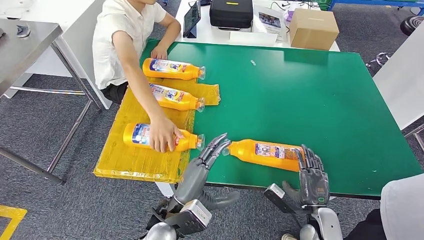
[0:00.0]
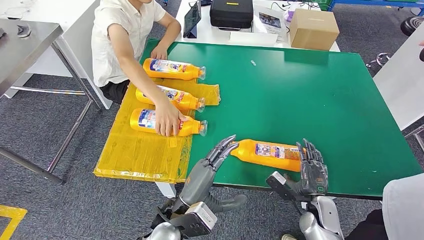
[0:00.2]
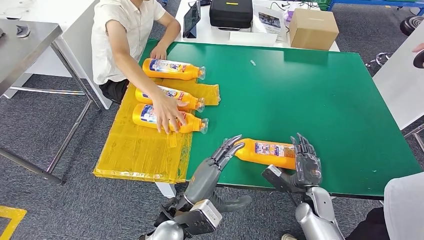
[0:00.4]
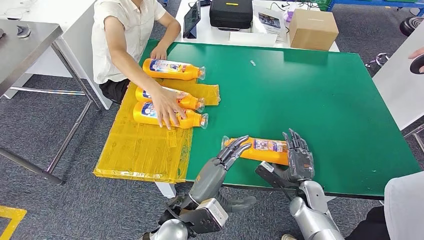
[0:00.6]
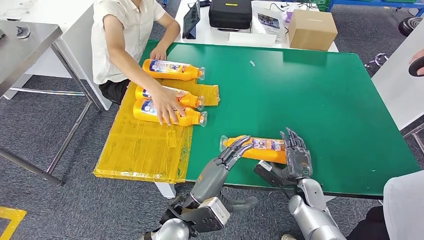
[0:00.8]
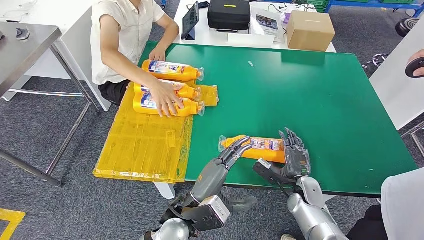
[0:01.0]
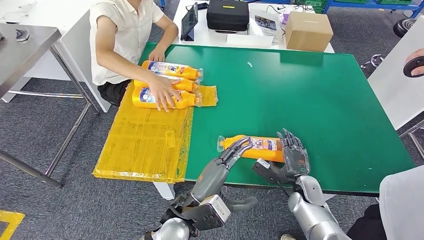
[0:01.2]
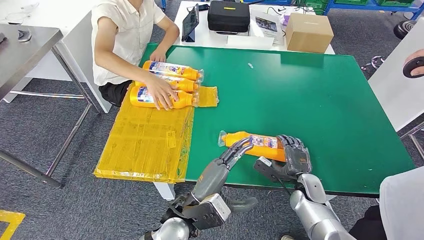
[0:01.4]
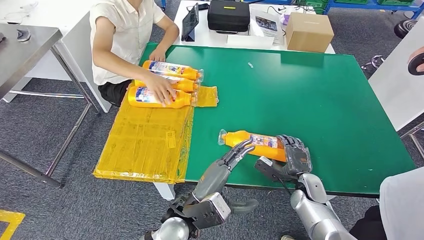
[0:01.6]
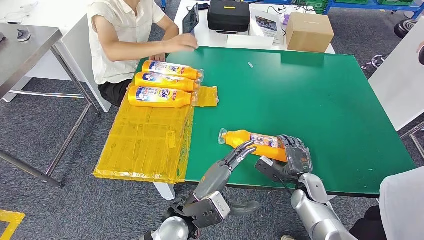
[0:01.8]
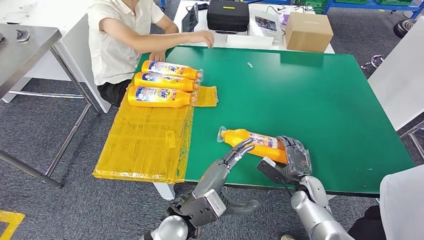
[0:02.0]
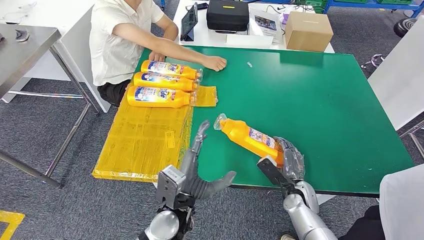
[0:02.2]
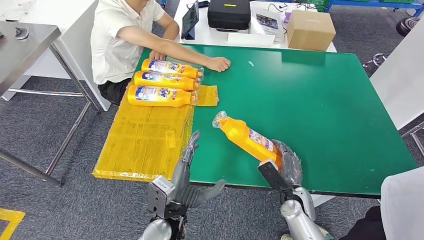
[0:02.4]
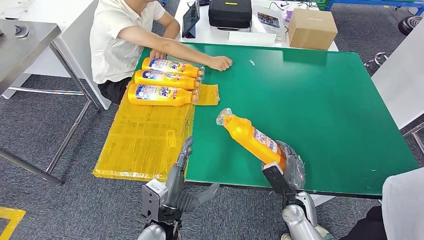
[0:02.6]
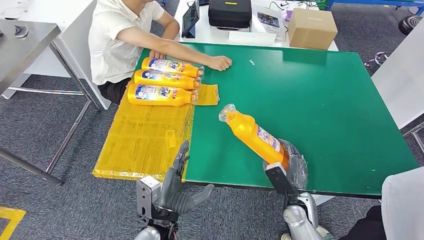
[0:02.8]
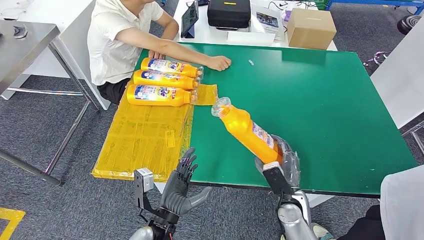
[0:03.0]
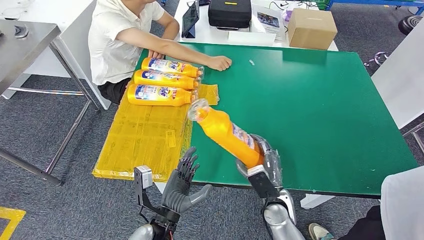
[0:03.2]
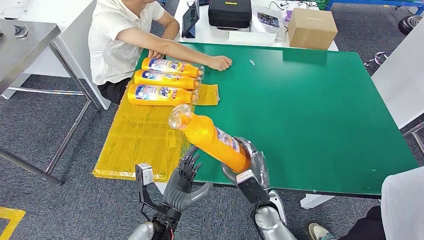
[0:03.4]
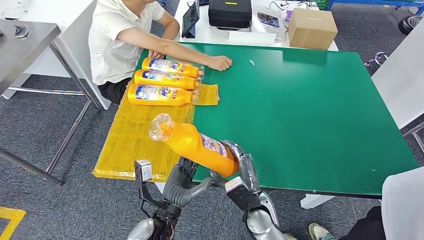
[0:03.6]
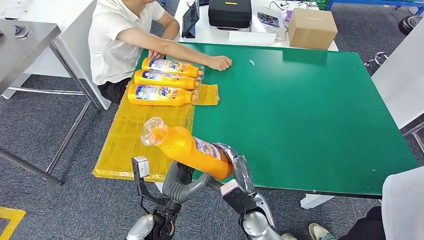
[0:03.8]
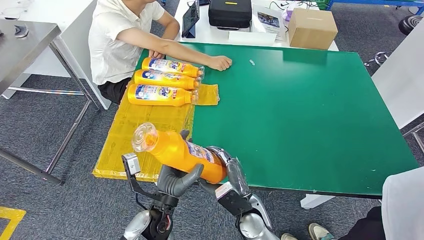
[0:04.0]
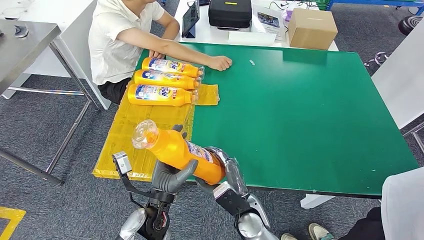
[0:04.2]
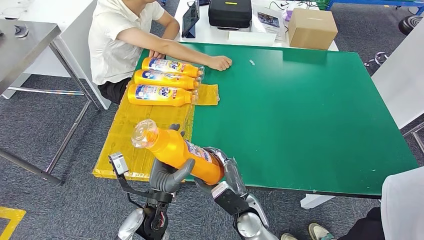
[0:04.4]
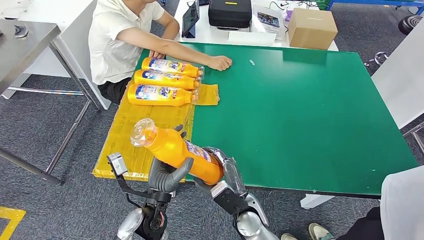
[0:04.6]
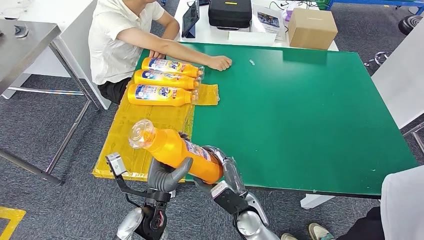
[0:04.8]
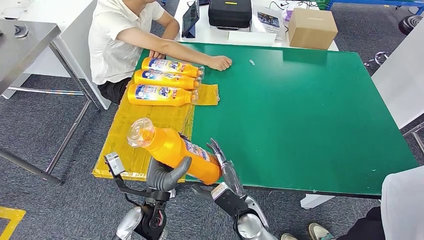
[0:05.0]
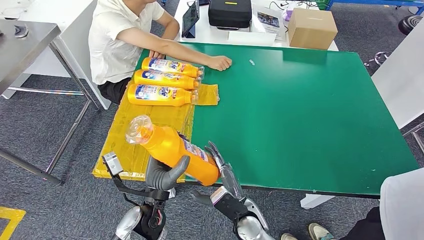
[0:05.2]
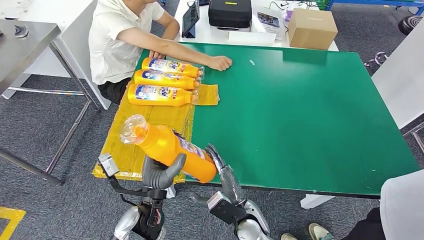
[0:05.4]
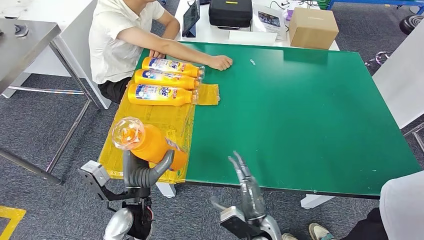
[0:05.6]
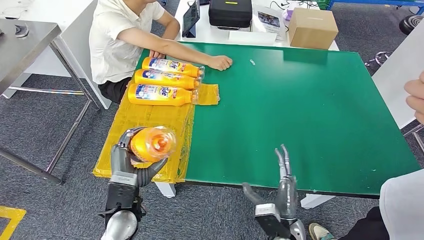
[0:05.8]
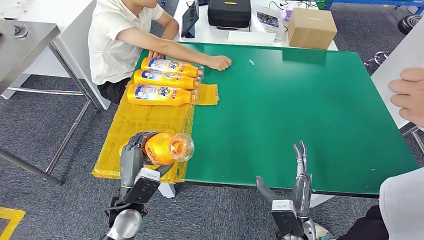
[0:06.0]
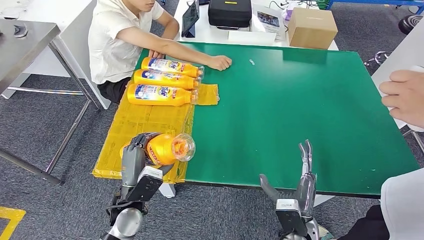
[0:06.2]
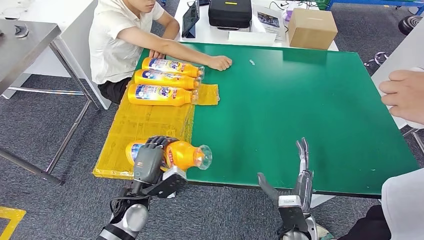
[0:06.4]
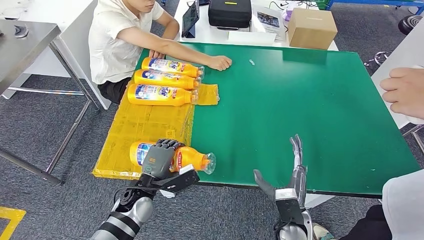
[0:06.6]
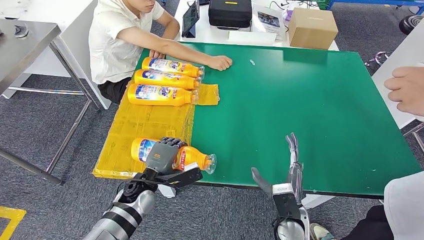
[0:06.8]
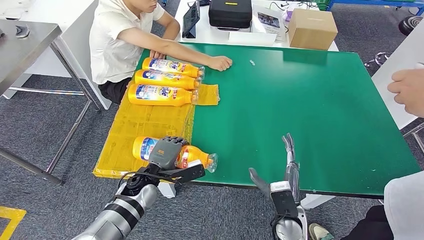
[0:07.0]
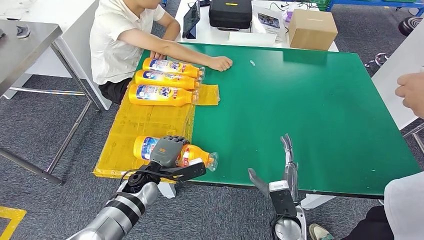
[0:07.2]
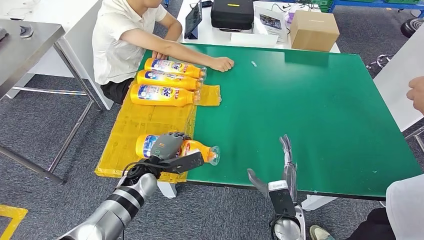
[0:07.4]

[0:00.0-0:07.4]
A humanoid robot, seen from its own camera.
Step, 0:00.0 to 0:03.6: Pick up the fast-moving consumer goods bottle from the table.
Step, 0:04.0 to 0:07.4: Flip the fast-moving consumer goods bottle to the front side.
0:03.0 to 0:04.4: The right hand shifts approximately 15 cm to the left, while the left hand moves roughly 5 cm.
0:04.4 to 0:06.0: The left hand is displaced to the left by approximately 5 cm; the right hand shifts approximately 10 cm to the right.

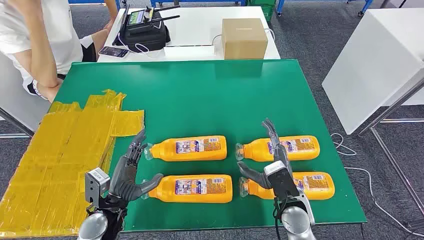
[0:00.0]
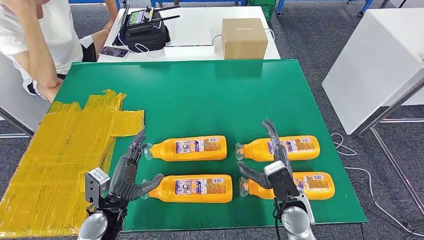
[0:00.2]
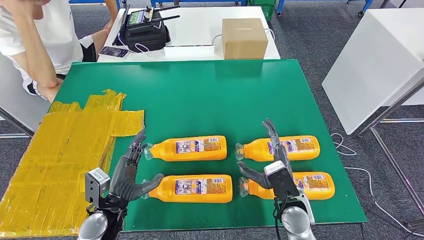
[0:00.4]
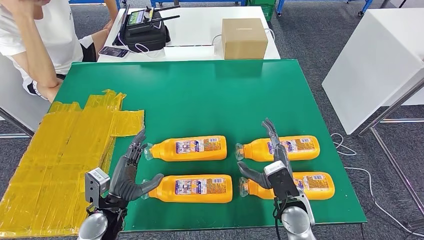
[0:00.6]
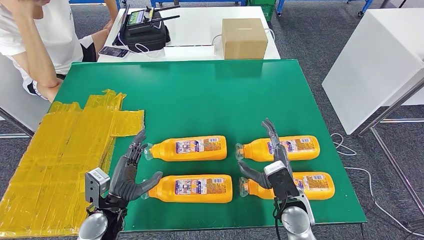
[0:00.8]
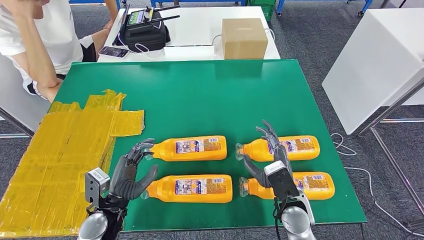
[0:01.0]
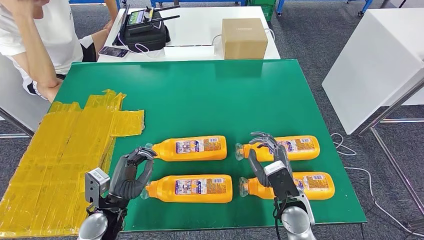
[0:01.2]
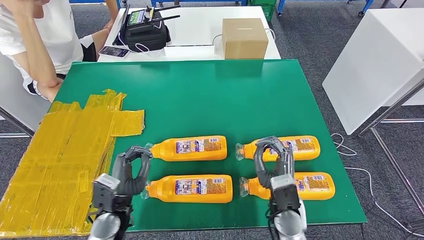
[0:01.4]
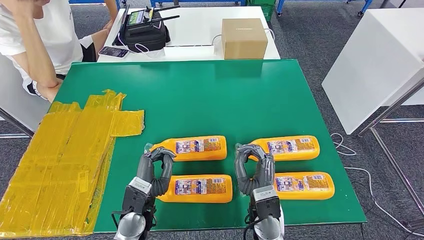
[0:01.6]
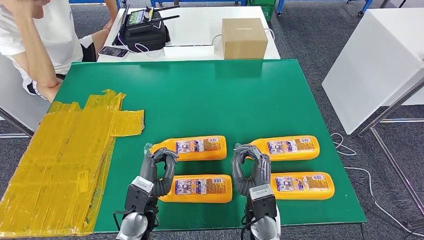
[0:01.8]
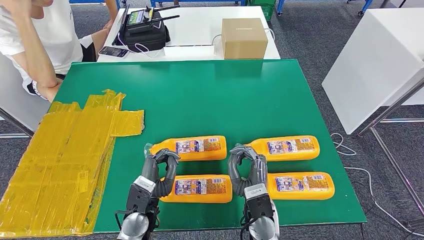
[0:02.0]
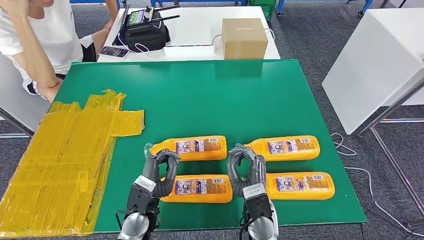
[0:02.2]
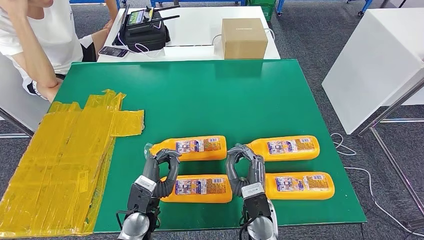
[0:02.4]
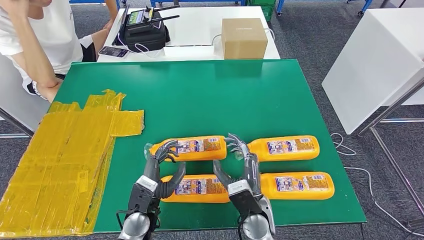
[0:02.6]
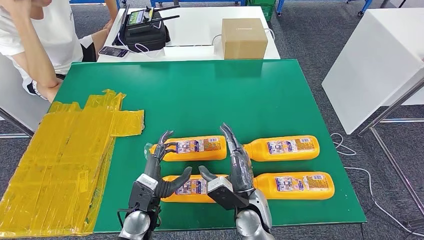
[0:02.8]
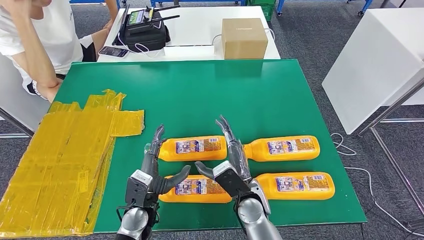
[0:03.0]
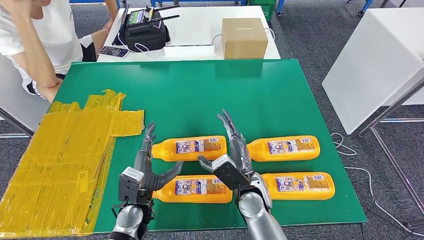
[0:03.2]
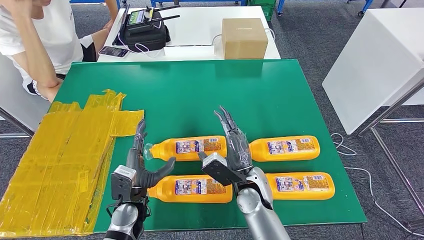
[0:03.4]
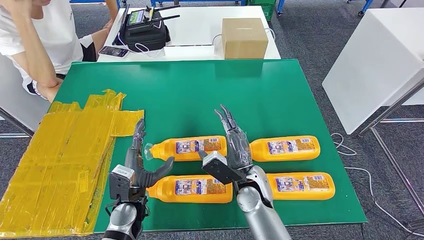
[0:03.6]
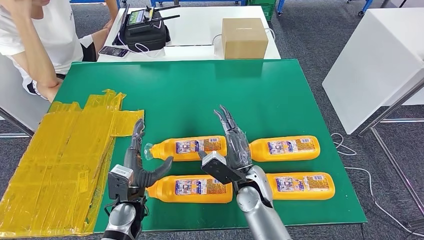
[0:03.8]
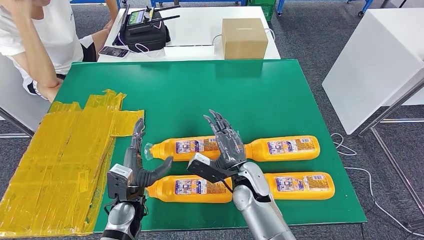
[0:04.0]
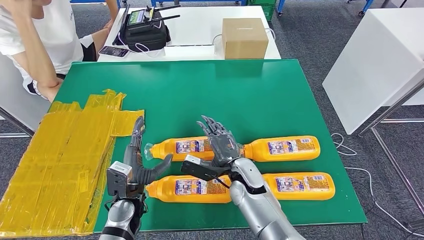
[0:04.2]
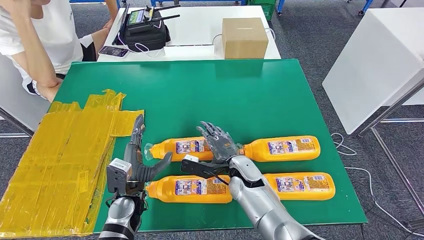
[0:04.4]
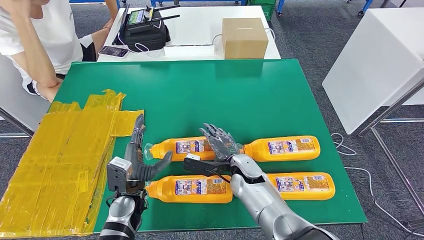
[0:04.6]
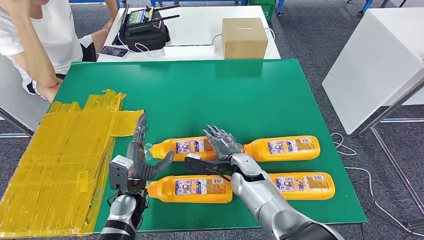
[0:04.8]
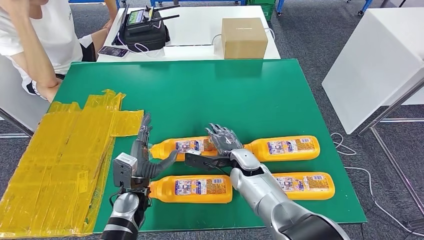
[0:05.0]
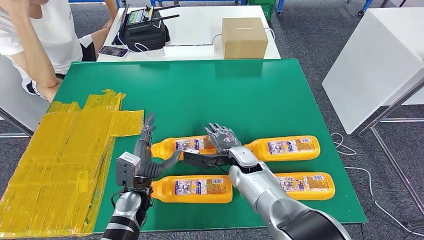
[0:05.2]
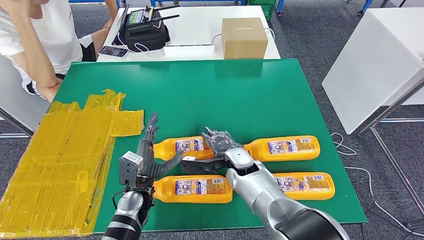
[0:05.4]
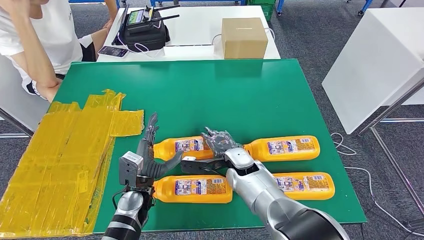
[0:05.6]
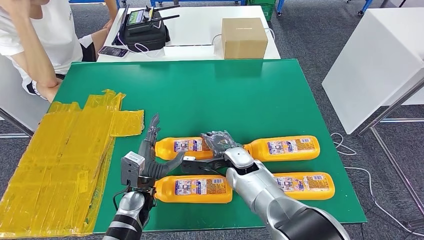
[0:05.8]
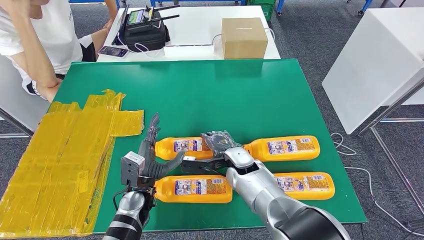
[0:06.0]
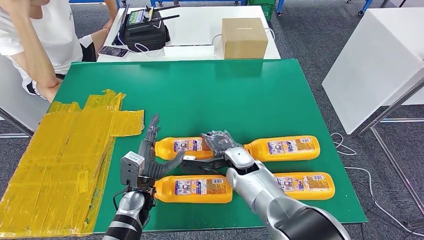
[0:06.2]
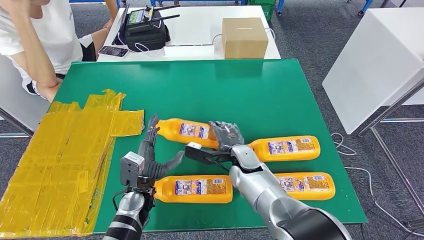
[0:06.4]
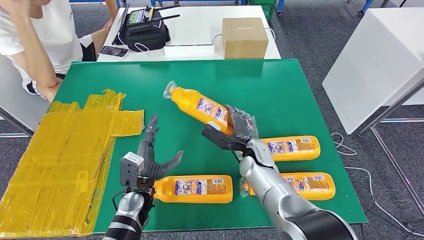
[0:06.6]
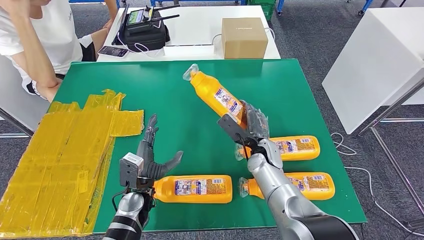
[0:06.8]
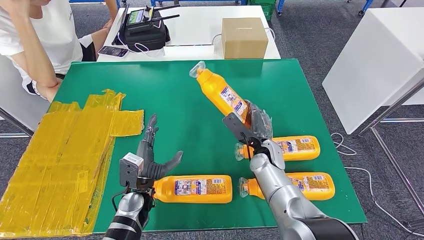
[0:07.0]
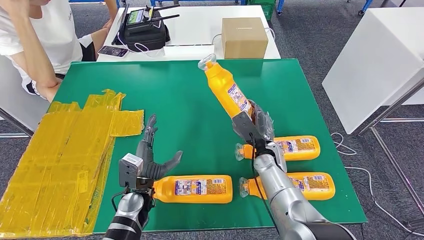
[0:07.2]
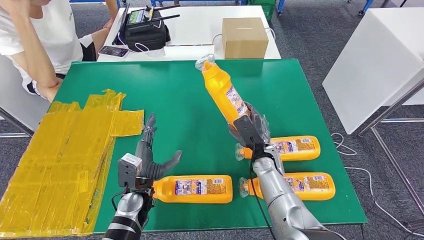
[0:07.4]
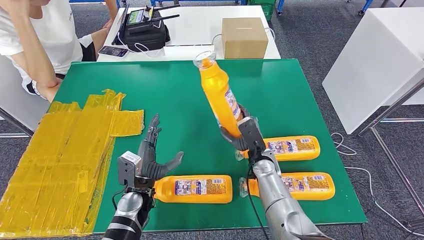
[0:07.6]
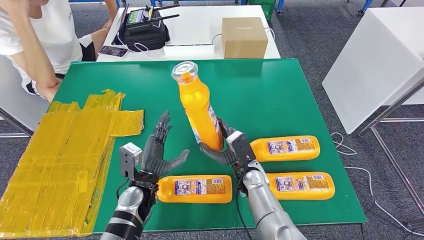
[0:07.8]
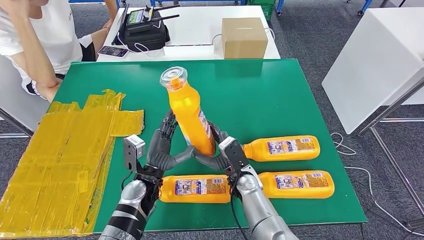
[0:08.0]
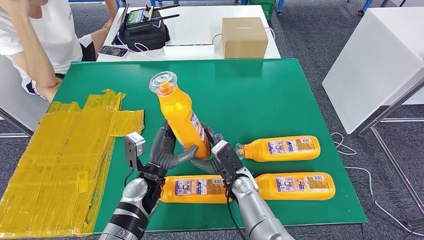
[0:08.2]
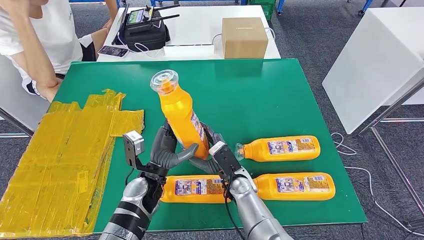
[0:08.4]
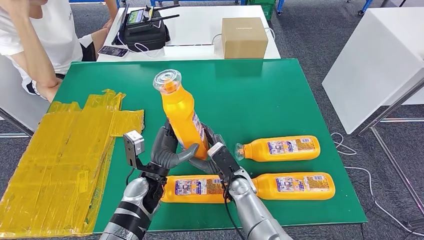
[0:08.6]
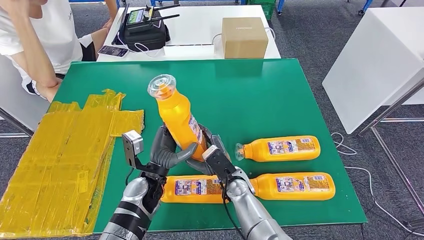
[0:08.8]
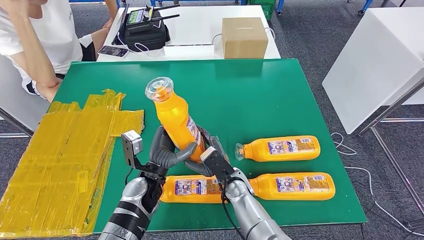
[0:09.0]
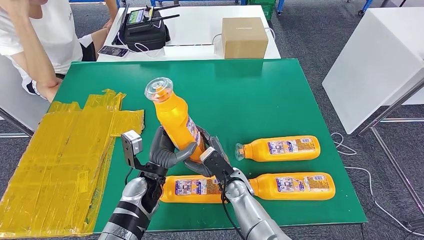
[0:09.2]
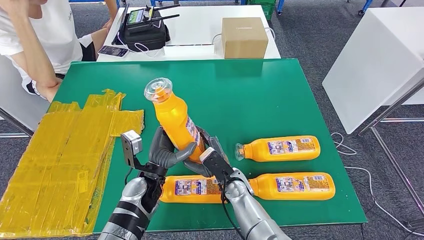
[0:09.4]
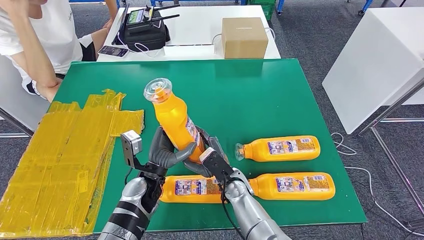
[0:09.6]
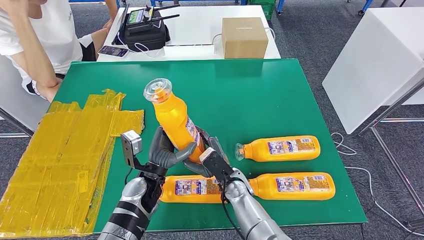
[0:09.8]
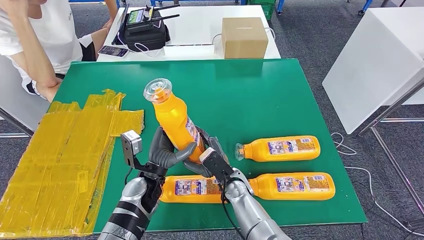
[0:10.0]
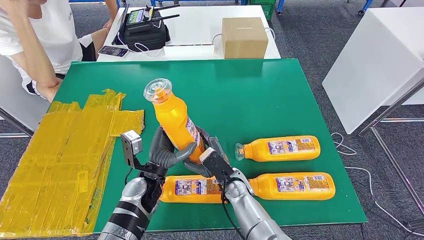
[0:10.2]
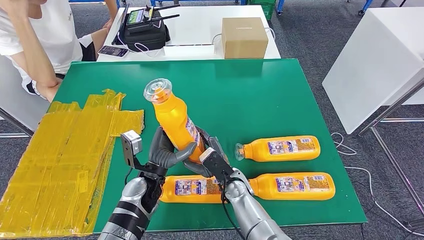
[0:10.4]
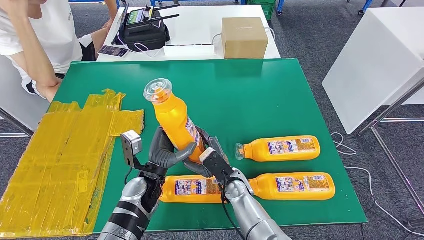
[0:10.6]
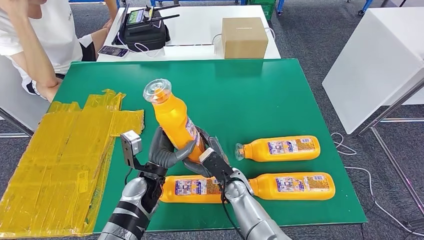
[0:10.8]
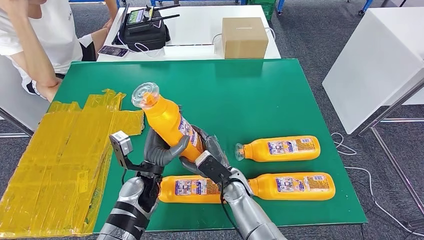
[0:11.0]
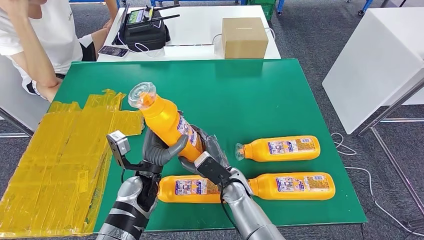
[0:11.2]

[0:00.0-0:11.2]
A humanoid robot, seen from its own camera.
Step, 0:00.0 to 0:06.8: Take the fast-moving consumer goods bottle from the table.
0:01.6 to 0:03.2: The right hand ends up about 5 cm from where it was.
0:03.2 to 0:04.8: The right hand heads forward, covering approximately 5 cm.
0:04.8 to 0:06.4: There are only small adjustments of the hands.
0:08.0 to 0:11.2: The hands make only small movements.
